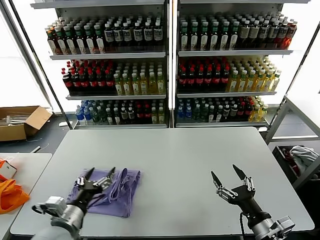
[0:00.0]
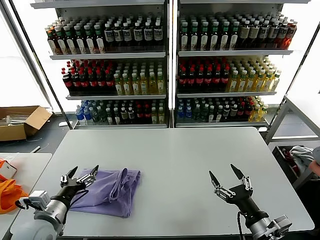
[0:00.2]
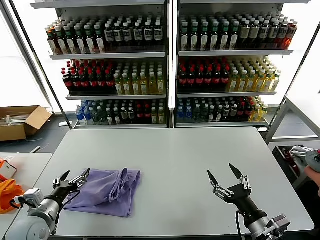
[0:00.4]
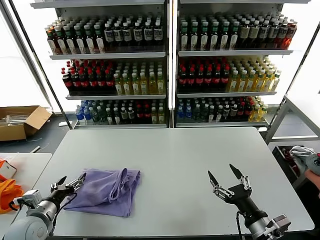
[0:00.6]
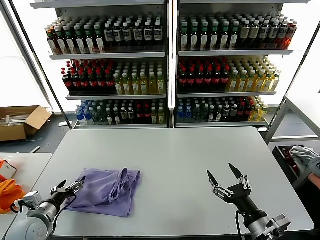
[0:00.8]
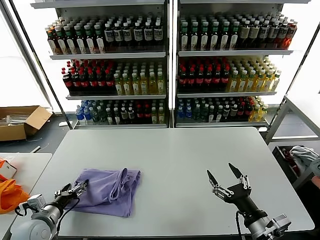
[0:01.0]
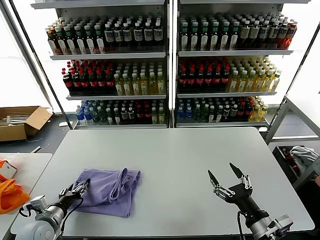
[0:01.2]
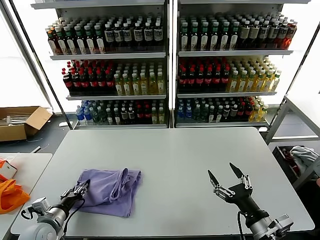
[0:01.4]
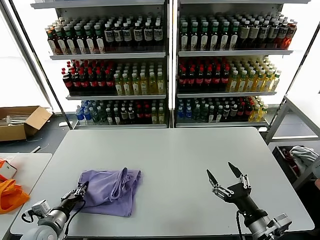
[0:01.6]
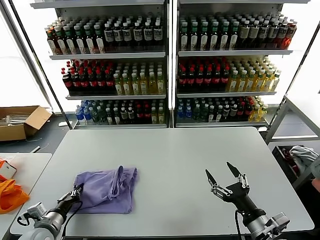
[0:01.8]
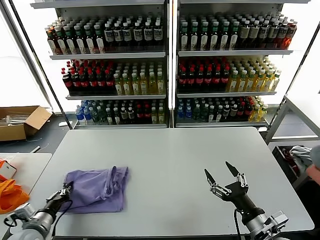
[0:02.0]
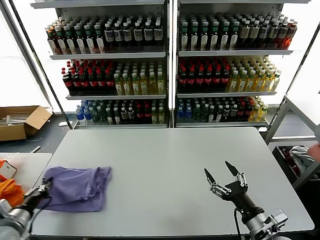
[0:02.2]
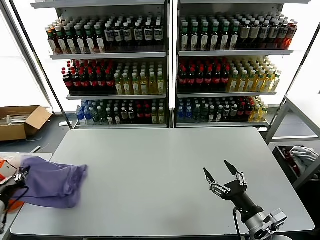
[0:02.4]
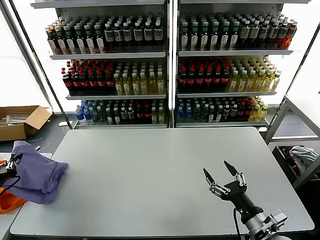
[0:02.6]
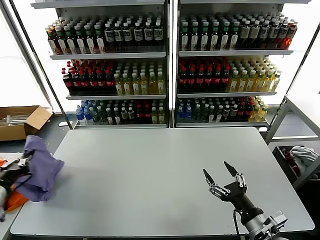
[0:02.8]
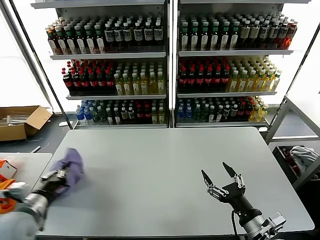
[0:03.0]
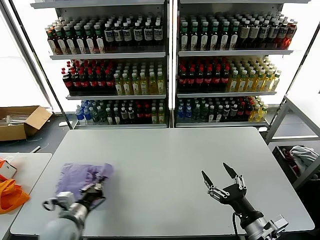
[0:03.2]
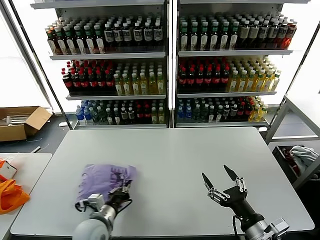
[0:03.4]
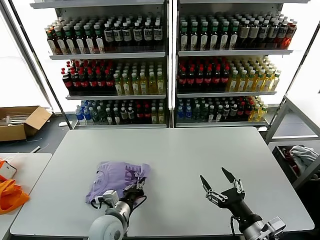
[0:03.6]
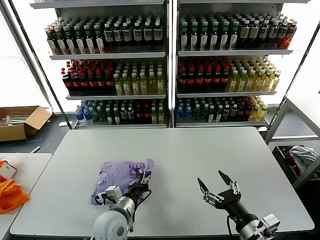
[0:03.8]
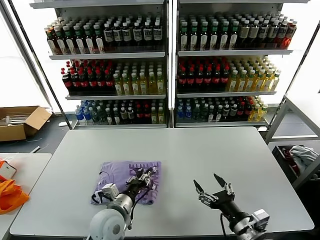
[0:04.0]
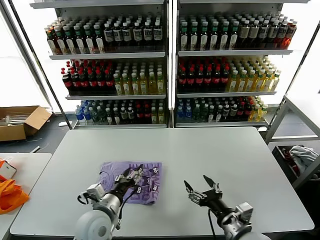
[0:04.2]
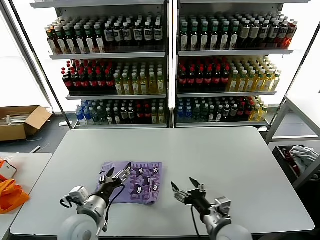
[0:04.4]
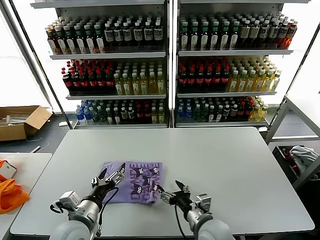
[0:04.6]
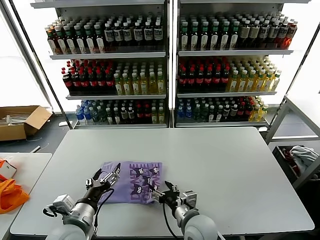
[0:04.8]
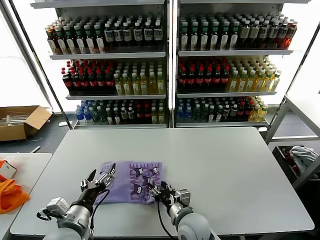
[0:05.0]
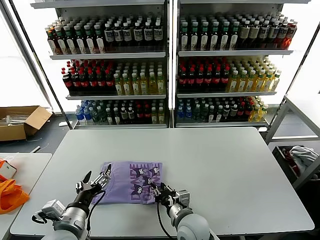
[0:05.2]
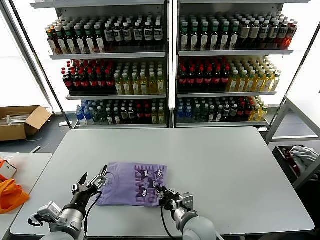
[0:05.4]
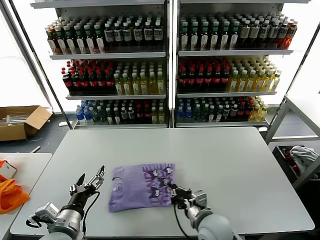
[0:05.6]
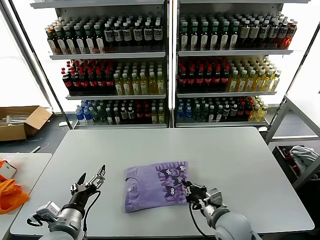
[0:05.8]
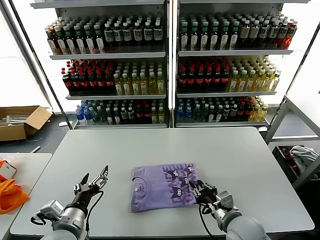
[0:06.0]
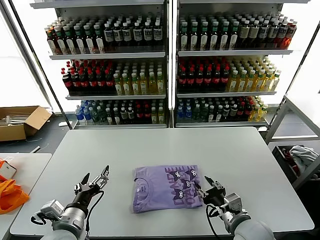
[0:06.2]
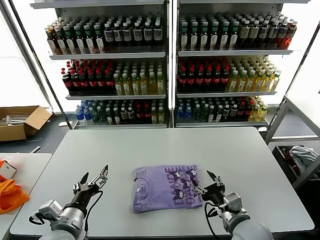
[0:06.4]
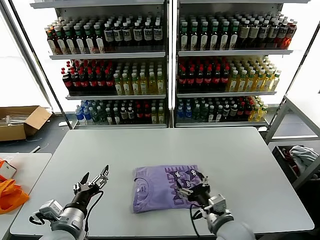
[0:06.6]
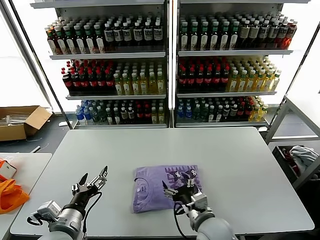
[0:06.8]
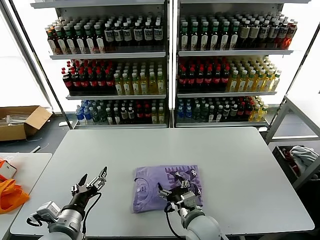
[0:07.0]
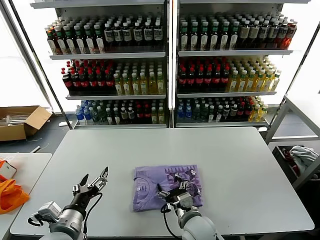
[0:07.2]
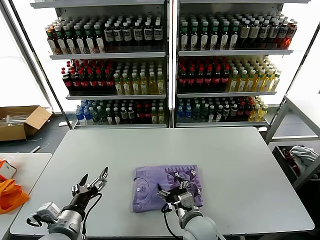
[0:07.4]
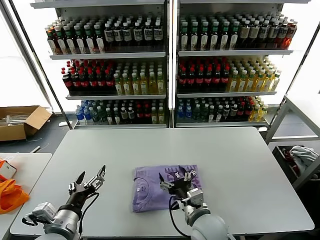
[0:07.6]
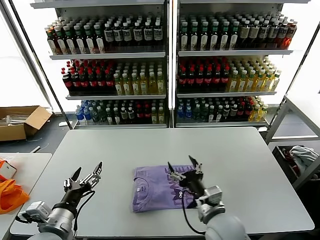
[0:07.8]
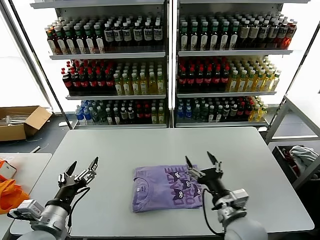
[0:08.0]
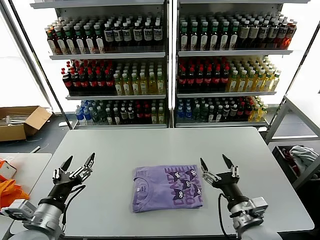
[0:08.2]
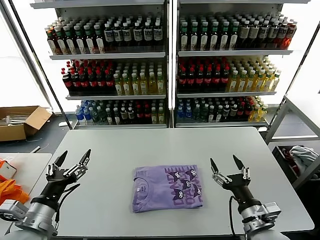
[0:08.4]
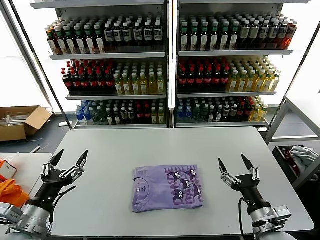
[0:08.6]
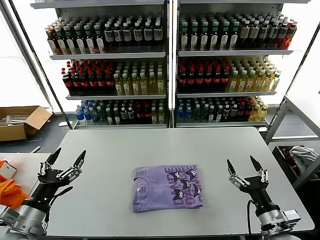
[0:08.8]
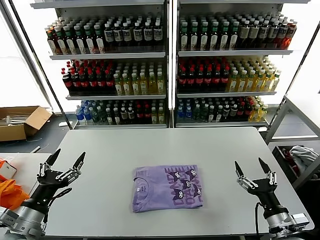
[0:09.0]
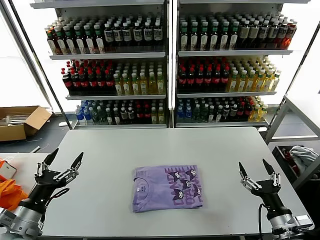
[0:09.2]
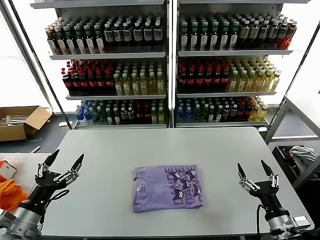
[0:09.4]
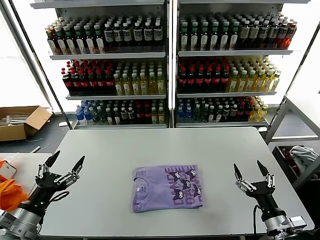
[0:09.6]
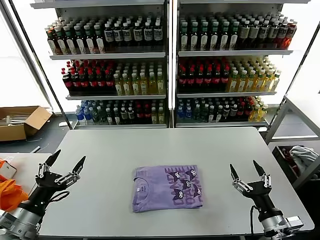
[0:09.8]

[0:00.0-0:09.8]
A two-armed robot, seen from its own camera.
Task of the whole recording: fold and organize the clothes.
Step, 0:00.0 to 0:04.0: Flip the folded clothes over with left gripper.
Step, 0:04.2 to 0:07.6: Drag the clothes to the center of the table.
0:00.0 to 0:01.4: The left gripper travels to the left and downward by some 15 cm.
0:01.4 to 0:02.8: The left gripper is displaced upward and to the left by roughly 20 cm, and closes up.
0:02.8 to 0:04.2: The right gripper moves about 5 cm. The left gripper shifts some 30 cm to the right, and opens.
0:04.2 to 0:05.6: The right gripper is displaced to the left and forward by some 15 cm, and closes. Meanwhile the left gripper is displaced to the left and backward by approximately 10 cm, and opens.
0:05.6 to 0:07.0: The right gripper travels to the right and back again, roughly 10 cm each way, and opens its fingers.
0:07.0 to 0:08.4: The left gripper ends up roughly 5 cm from where it was. The right gripper moves to the right, about 15 cm.
0:08.4 to 0:09.8: The right gripper is displaced to the right by approximately 5 cm; the left gripper shifts roughly 5 cm to the left.
